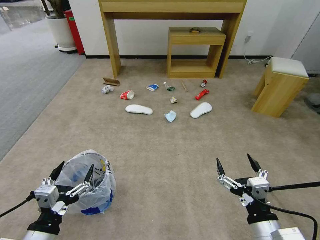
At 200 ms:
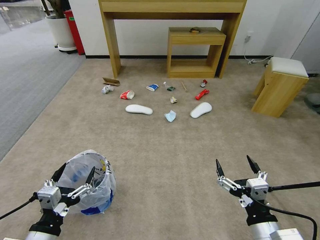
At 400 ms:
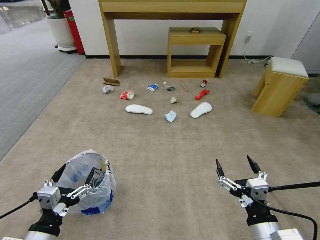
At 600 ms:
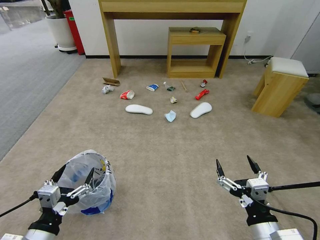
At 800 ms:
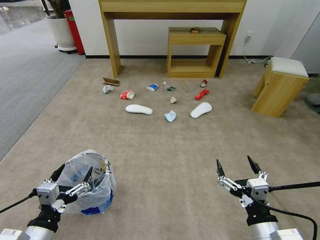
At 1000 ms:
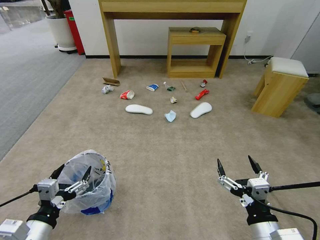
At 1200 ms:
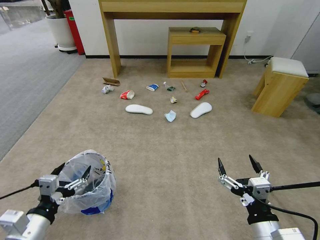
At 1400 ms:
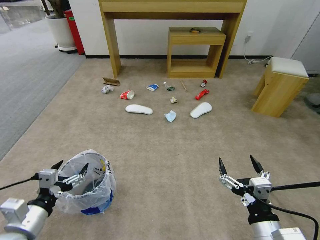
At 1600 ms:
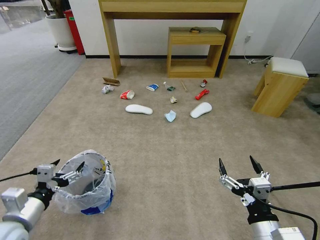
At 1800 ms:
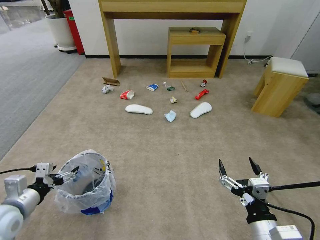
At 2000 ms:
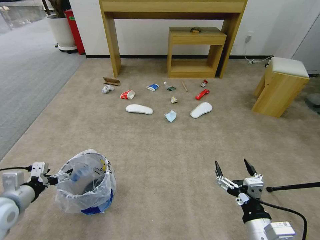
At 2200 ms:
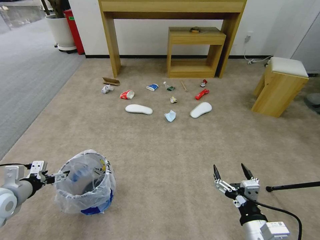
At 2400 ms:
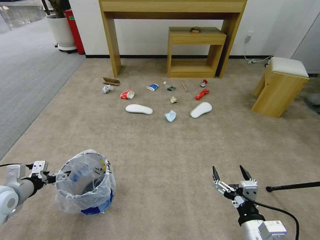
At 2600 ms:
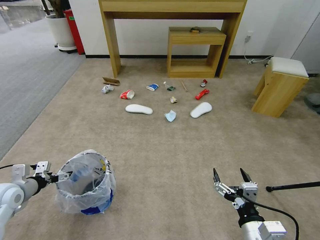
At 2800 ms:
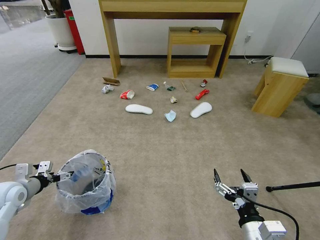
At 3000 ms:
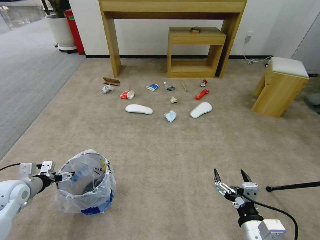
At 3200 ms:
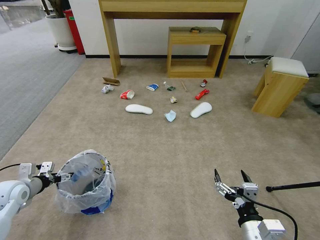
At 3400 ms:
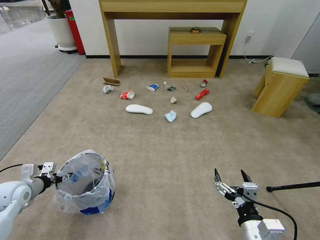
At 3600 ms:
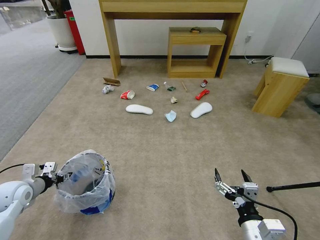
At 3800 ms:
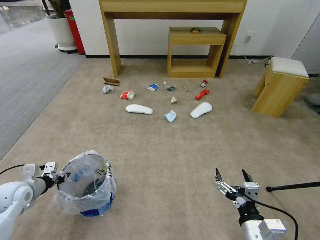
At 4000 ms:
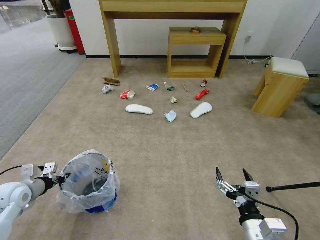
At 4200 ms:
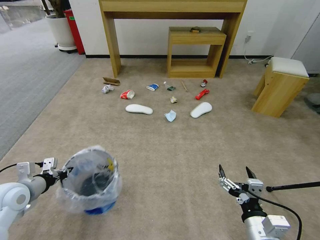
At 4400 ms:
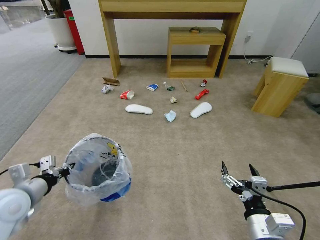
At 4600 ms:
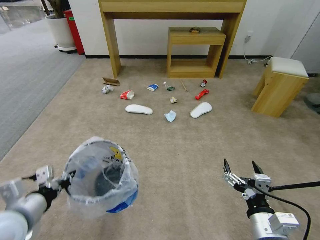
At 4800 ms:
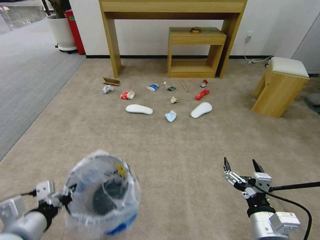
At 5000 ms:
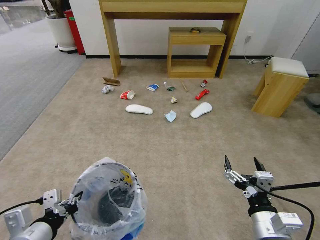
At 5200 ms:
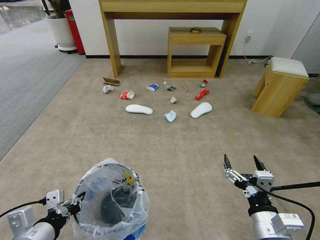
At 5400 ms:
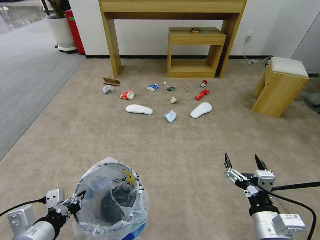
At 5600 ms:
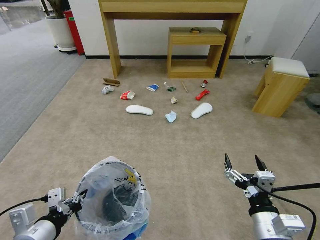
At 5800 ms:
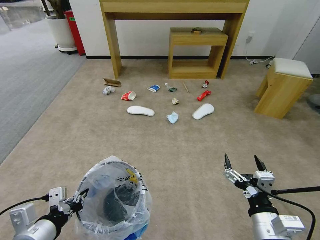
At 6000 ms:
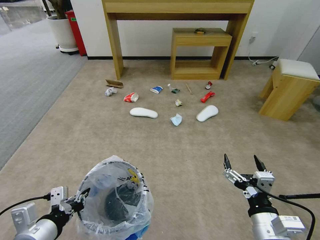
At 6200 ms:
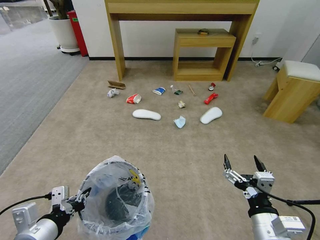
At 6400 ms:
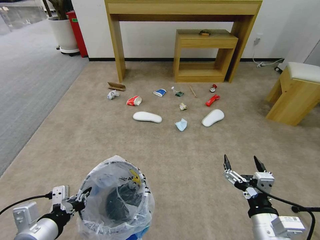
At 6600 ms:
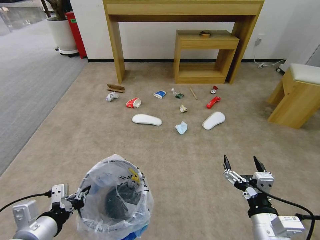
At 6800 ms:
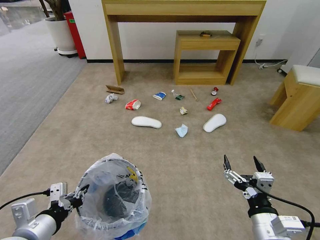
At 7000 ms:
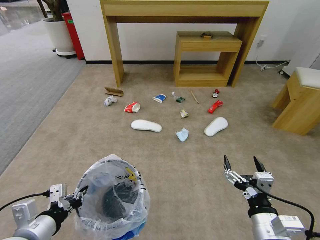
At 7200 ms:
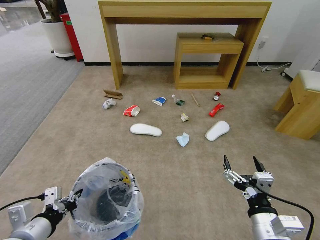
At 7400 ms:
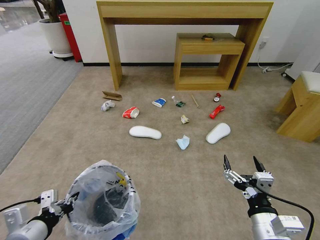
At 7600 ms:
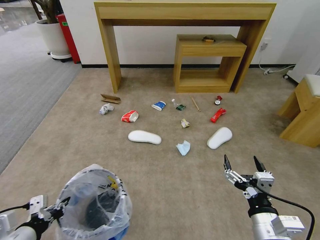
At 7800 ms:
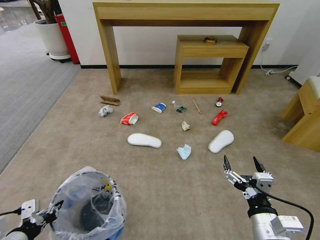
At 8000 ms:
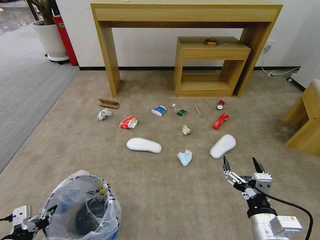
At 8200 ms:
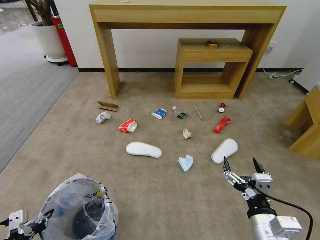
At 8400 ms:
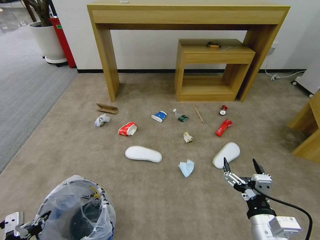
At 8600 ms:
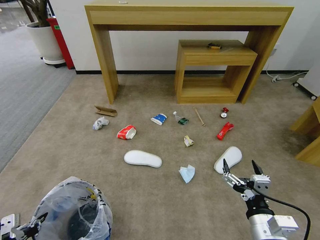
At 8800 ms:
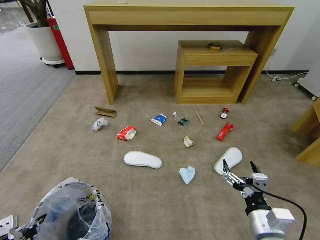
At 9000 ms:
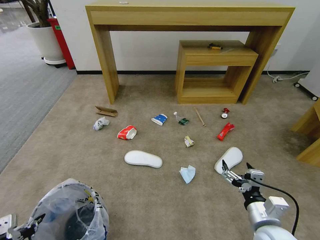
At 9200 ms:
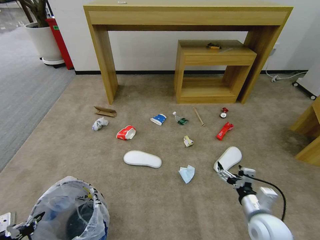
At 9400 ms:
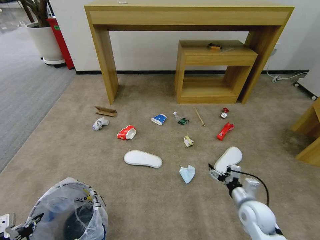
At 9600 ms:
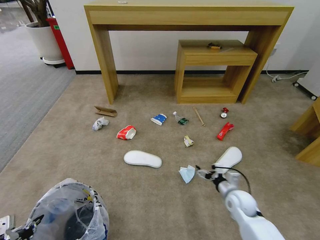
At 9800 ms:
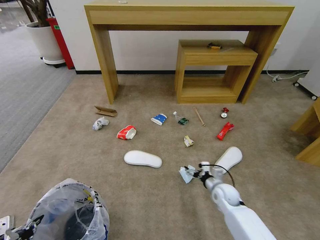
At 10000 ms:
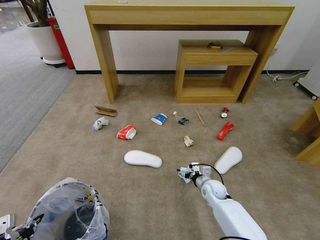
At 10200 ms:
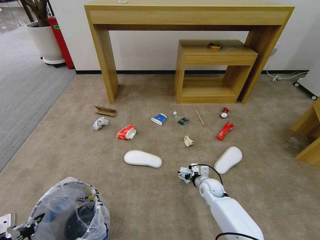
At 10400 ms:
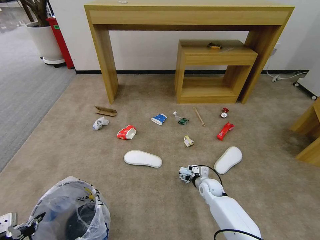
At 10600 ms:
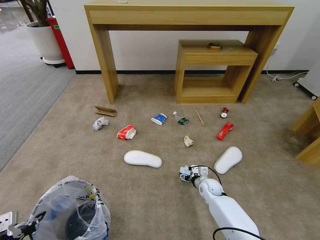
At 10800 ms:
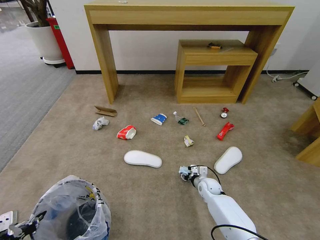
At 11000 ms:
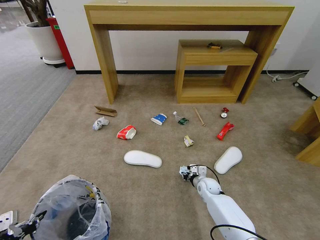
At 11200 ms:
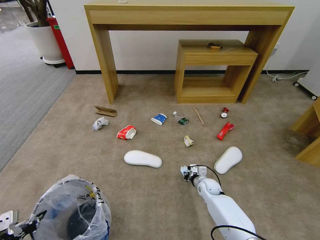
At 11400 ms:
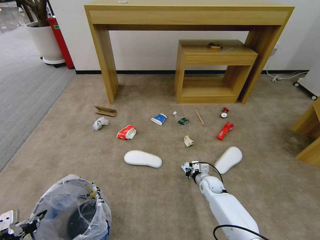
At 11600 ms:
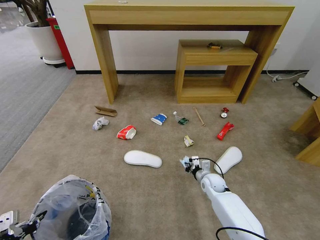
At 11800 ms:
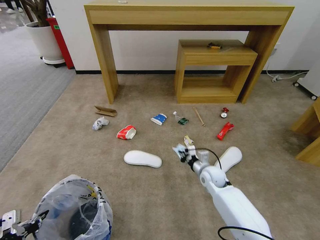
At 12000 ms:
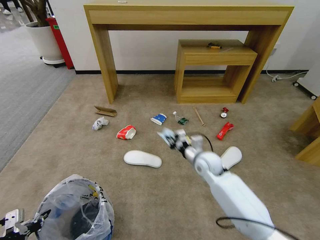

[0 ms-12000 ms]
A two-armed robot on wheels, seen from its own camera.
Task of the whole recording: Pick up the trash bin and place the garbage on the floor into it.
1600 ms to 3000 ms: The left gripper is displaced forward, to the left and downward by some 15 cm.
3000 ms to 4400 ms: The left gripper is displaced to the right, upward and backward by roughly 15 cm, and closes its fingers.
4400 ms to 6000 ms: The left gripper travels backward and to the right by approximately 15 cm.
6000 ms to 7600 ms: The left gripper travels to the left by some 5 cm.
7600 ms to 9000 ms: The left gripper moves to the left, some 10 cm, while the right gripper ends up some 5 cm from where it was.
9000 ms to 10400 ms: The right gripper shifts some 30 cm forward and downward.
10400 ms to 12000 ms: The right gripper moves upward, about 20 cm, and closes up.

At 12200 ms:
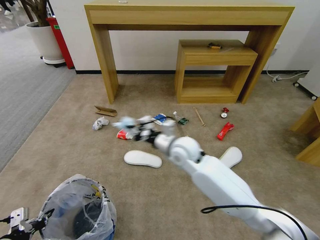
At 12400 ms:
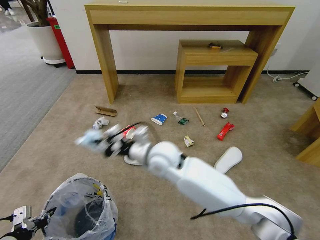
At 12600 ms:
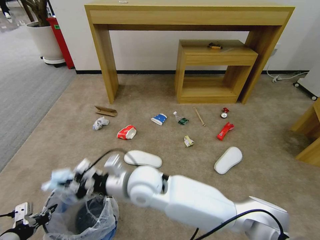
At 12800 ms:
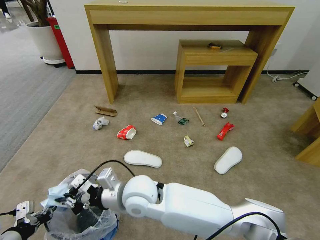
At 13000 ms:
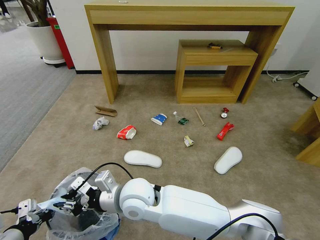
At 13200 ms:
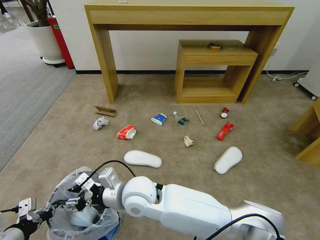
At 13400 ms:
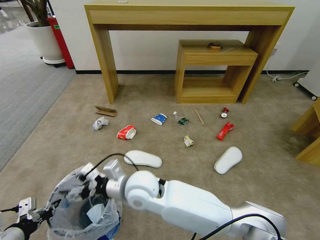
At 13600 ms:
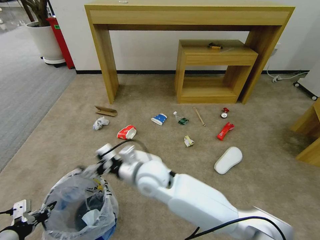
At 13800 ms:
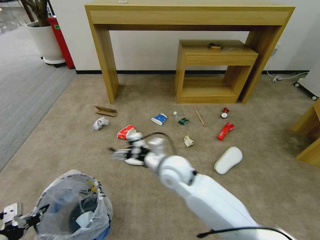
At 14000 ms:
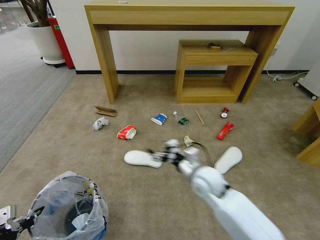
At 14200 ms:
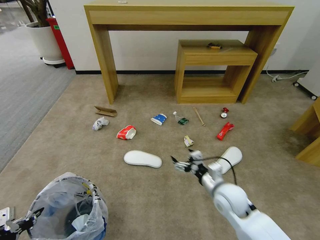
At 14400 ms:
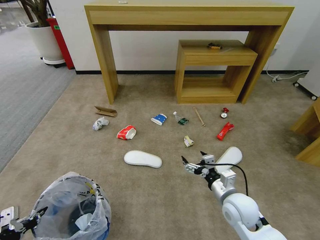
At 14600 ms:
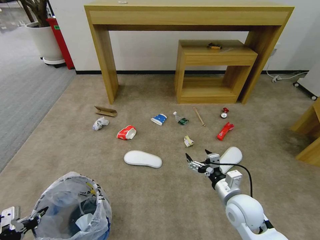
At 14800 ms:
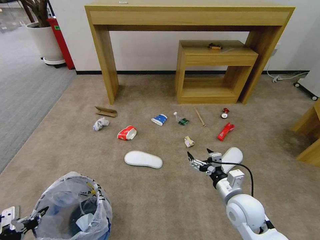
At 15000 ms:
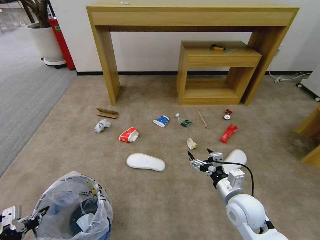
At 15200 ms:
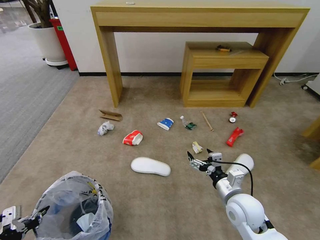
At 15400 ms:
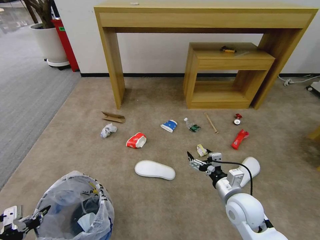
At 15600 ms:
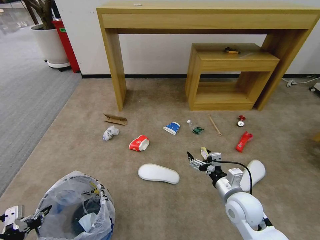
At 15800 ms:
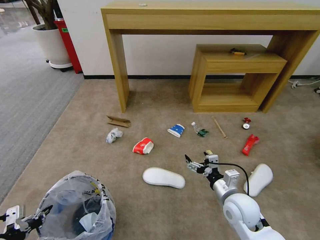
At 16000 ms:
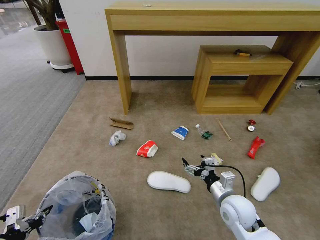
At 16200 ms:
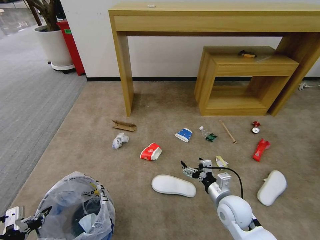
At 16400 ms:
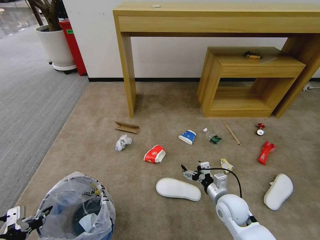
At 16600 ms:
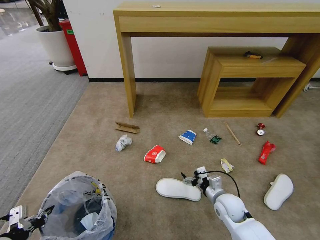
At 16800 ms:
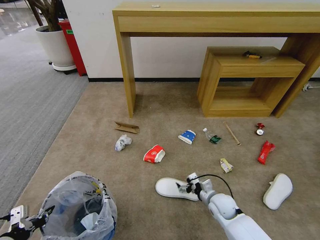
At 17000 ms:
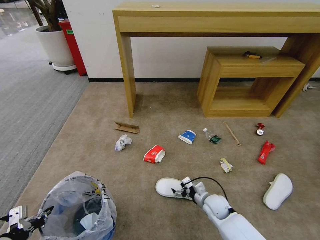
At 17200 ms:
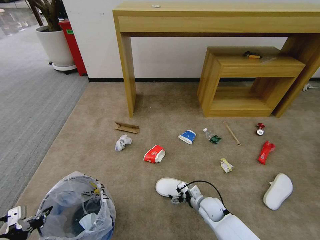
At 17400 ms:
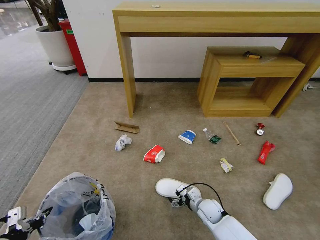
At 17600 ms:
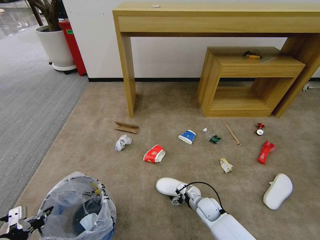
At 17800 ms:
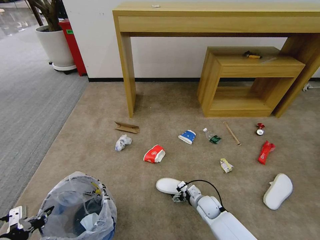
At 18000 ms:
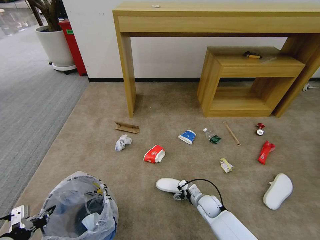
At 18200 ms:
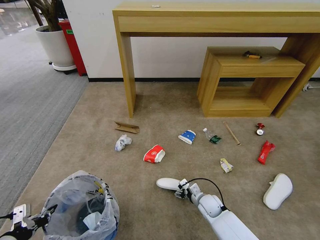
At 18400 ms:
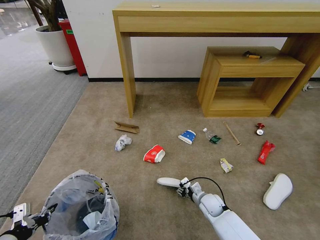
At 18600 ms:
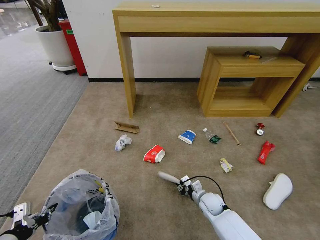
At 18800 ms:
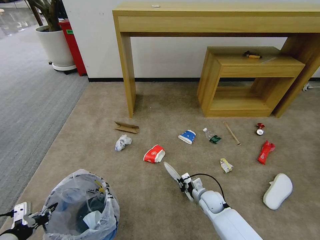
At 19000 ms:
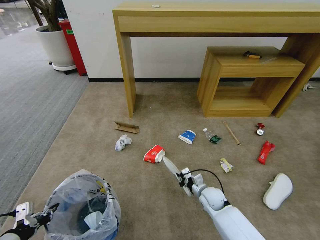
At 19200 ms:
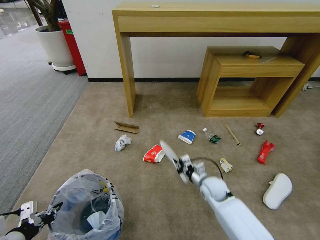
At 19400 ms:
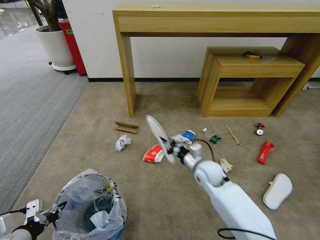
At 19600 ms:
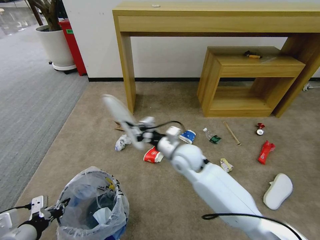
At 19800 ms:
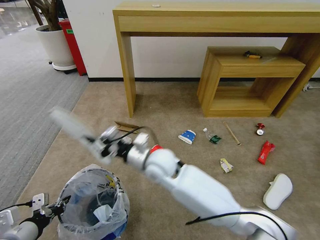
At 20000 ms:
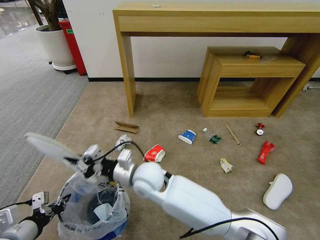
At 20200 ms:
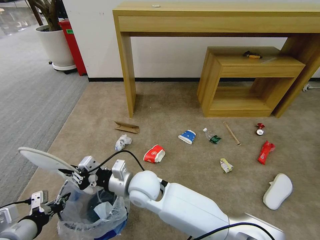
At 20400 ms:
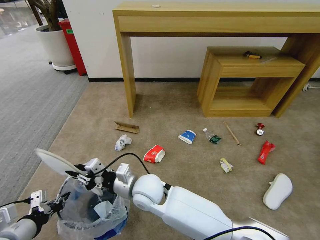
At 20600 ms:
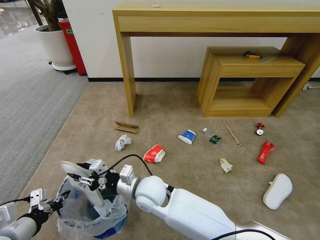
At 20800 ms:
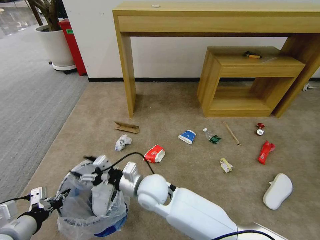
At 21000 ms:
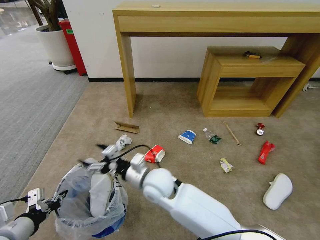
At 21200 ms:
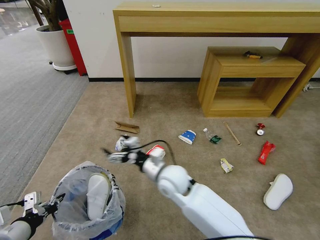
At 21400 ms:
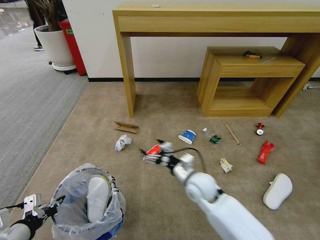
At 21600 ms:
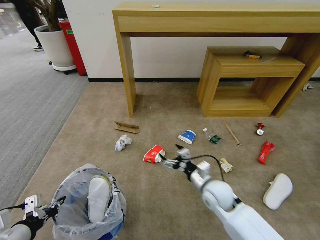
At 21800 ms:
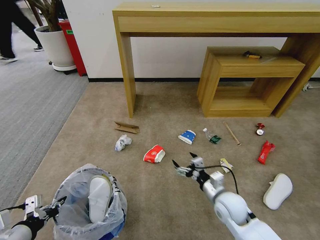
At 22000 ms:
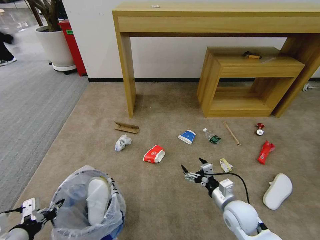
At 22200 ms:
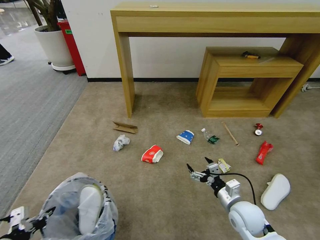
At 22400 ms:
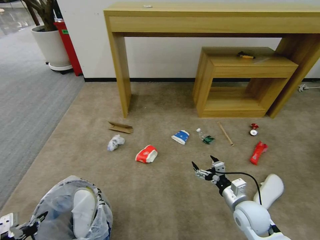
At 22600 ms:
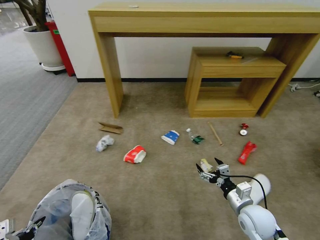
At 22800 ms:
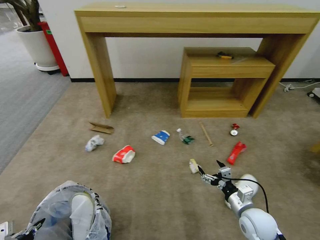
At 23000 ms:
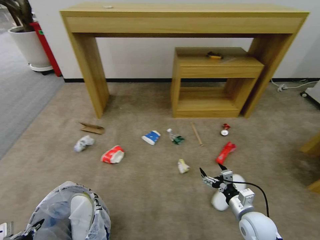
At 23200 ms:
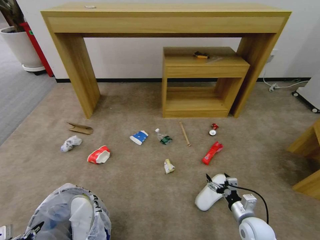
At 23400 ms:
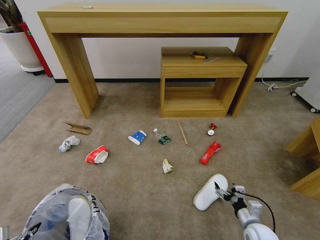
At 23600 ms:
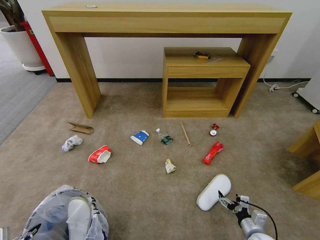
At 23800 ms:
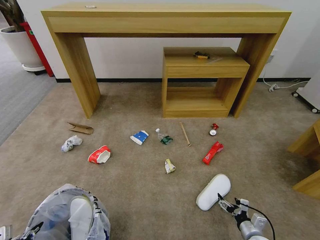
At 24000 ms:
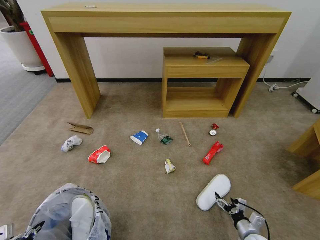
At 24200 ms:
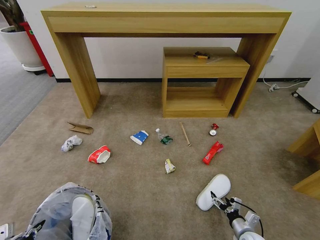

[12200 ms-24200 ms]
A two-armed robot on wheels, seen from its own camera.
Task of the whole recording: Pick up the trash bin and place the garbage on the floor into it.
12200 ms to 13800 ms: The right gripper heads backward, covering roughly 5 cm, goes to the left and returns, roughly 15 cm each way, and opens up.
13800 ms to 15200 ms: The right gripper heads to the right and backward, covering approximately 20 cm.
15200 ms to 16600 ms: The right gripper shifts some 10 cm downward.
16600 ms to 18200 ms: The right gripper travels downward by about 10 cm.
18200 ms to 19800 ms: The right gripper travels upward and to the left by some 35 cm, and closes.
19800 ms to 21200 ms: The right gripper moves roughly 5 cm, and opens.
21200 ms to 22600 ms: The right gripper heads to the right, covering about 25 cm. The left gripper moves backward, about 5 cm.
22600 ms to 24200 ms: The right gripper shifts approximately 15 cm downward.